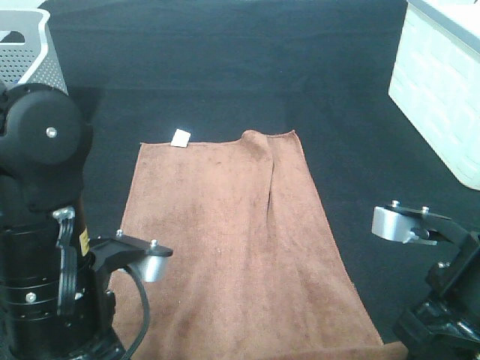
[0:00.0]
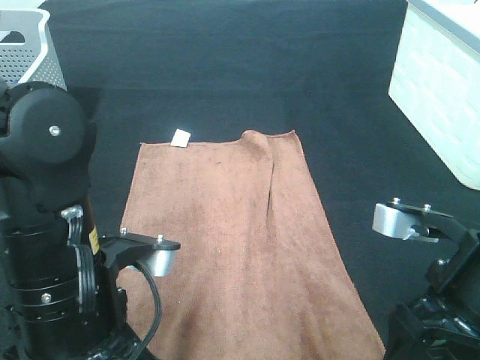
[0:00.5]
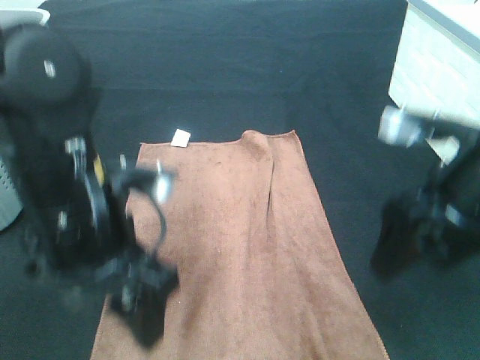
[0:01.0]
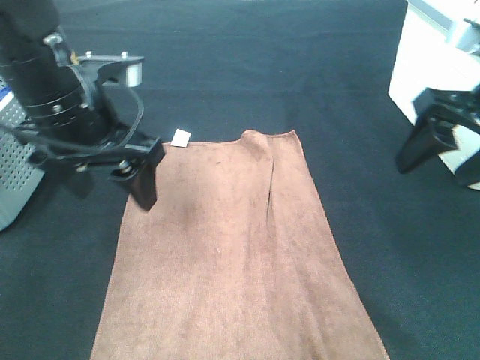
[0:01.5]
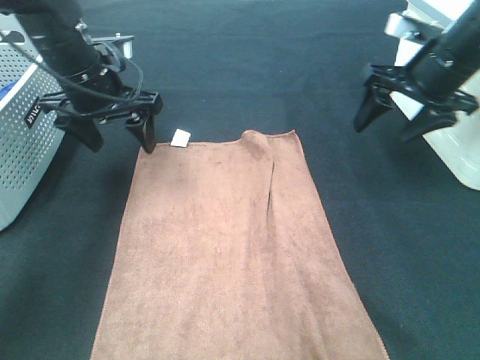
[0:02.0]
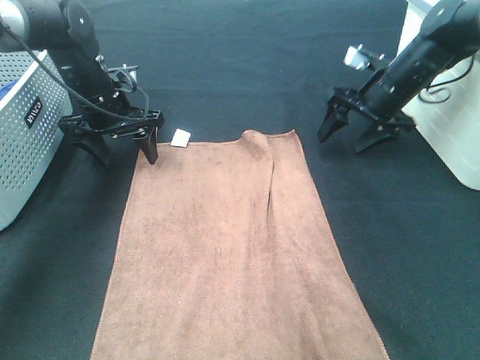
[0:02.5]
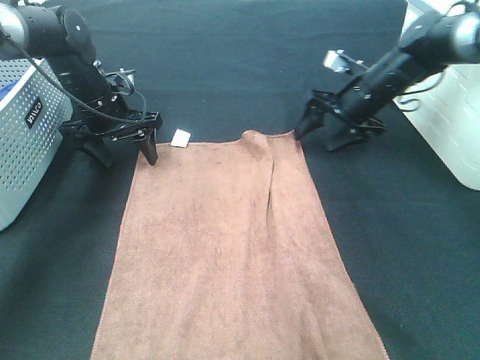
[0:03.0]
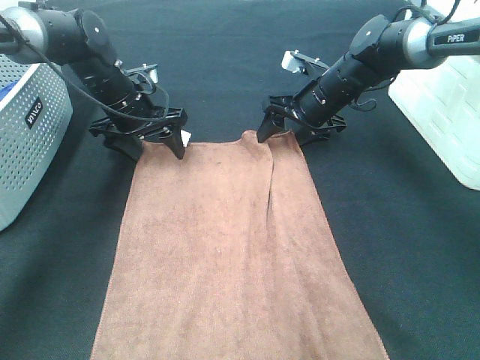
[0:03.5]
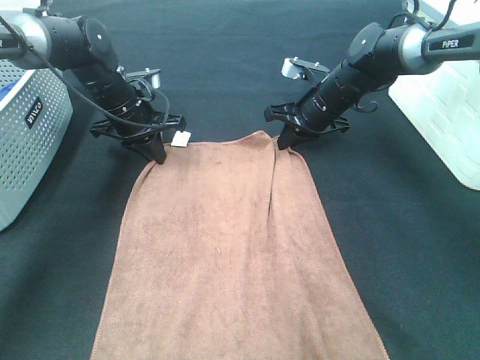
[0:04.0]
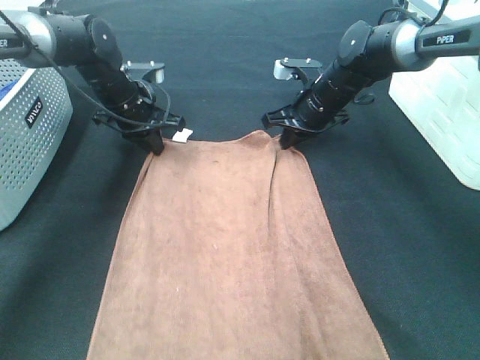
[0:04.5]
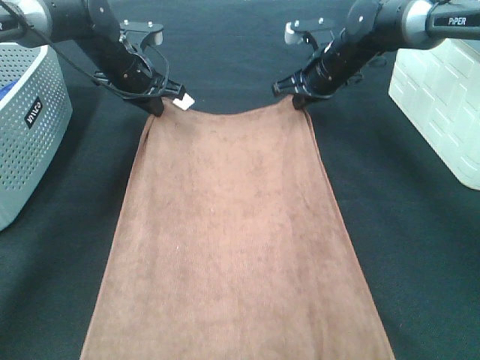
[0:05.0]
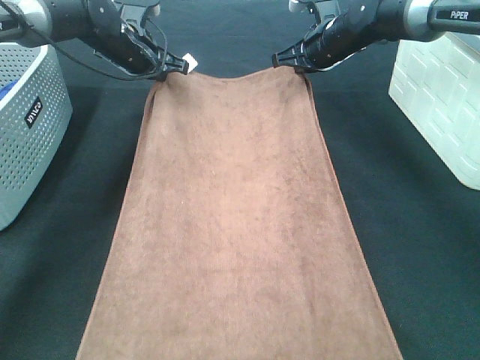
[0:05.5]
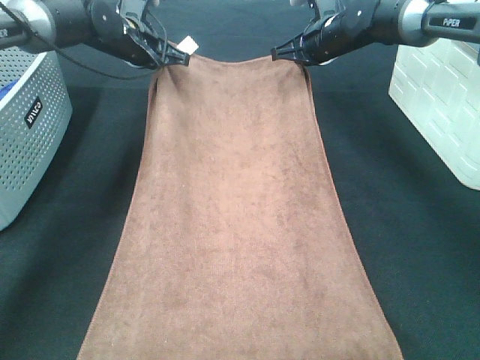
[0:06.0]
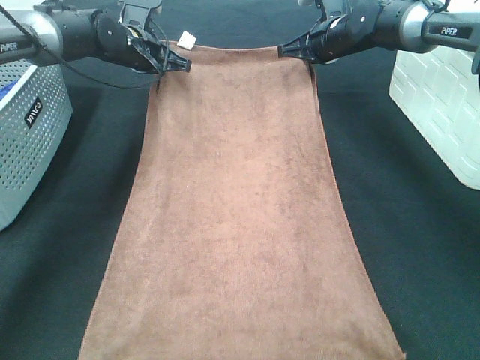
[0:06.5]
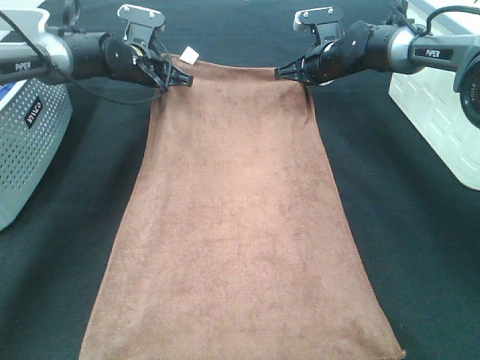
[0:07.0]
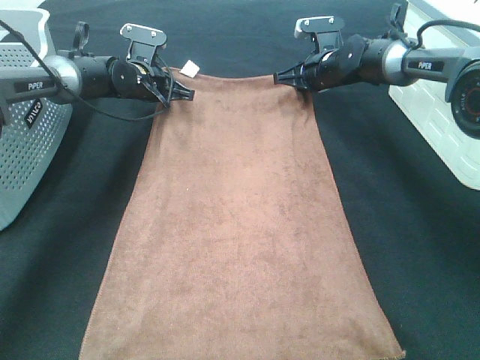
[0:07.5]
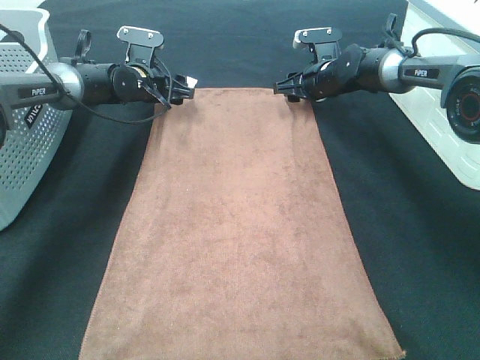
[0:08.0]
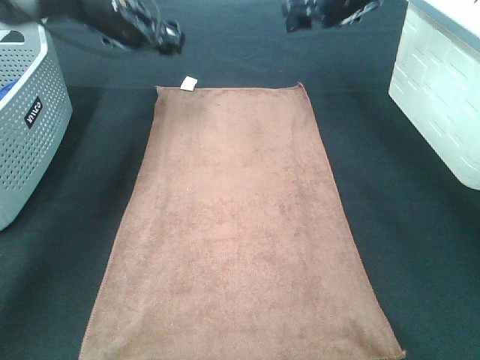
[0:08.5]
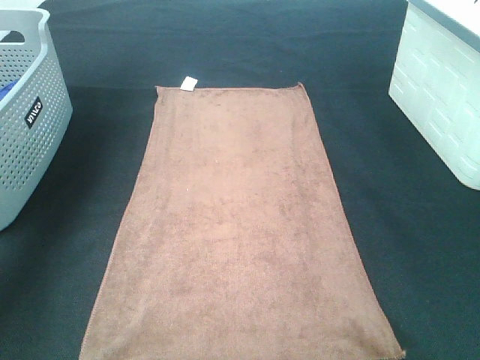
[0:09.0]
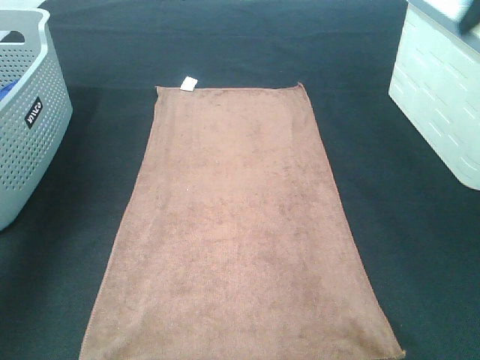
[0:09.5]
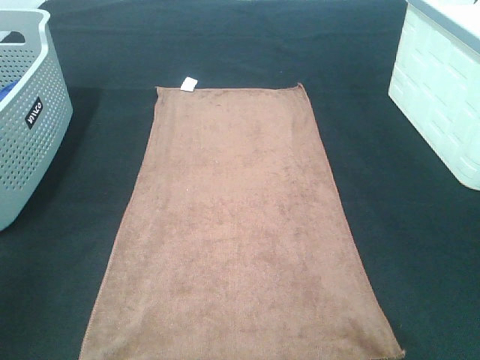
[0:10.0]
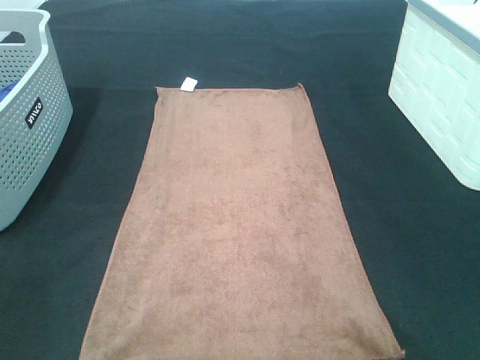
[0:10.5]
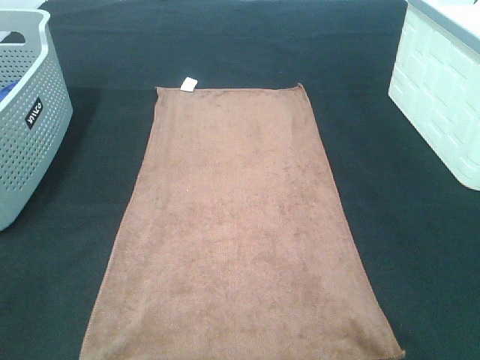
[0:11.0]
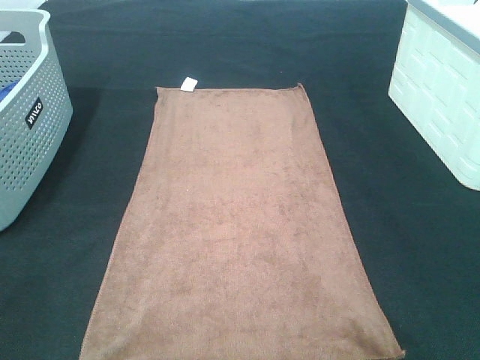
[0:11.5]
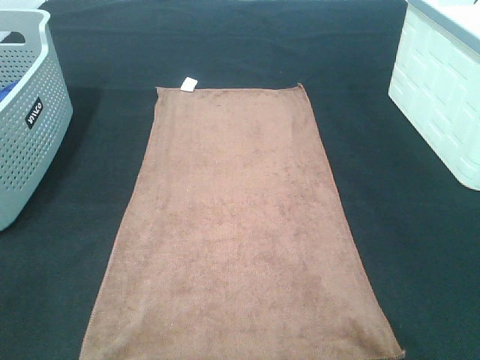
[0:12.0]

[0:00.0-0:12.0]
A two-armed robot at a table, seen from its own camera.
Task of the whole recording: Remove the towel and place it.
Step, 0:00.0 to 0:02.0: Left hand:adjust the brown towel.
Step, 0:00.0 to 0:02.0: Right hand:adjust the brown towel.
0:00.0 to 0:02.0: The grippers both shift forward by about 25 cm. The left gripper opens up; the right gripper opens up.
0:02.0 to 0:04.0: The right gripper heads downward, to the left and forward, covering roughly 15 cm, and closes up; the left gripper travels downward and forward by approximately 10 cm, and closes up.
0:04.0 to 0:06.0: The left gripper shifts roughly 10 cm forward and upward, while the right gripper moves upward and forward, about 10 cm.
0:06.0 to 0:08.0: The two grippers go about 10 cm downward. The left gripper opens up, while the right gripper opens up.
0:08.0 to 0:10.0: The grippers both shift backward and upward by some 60 cm.

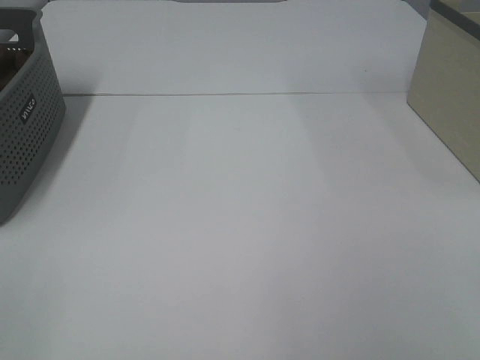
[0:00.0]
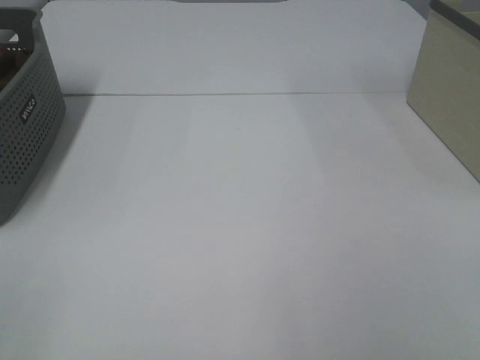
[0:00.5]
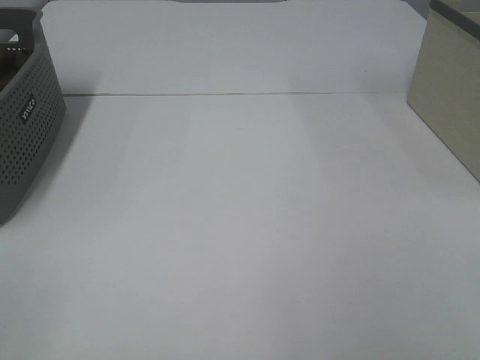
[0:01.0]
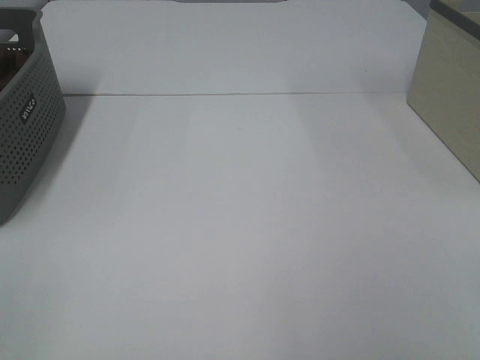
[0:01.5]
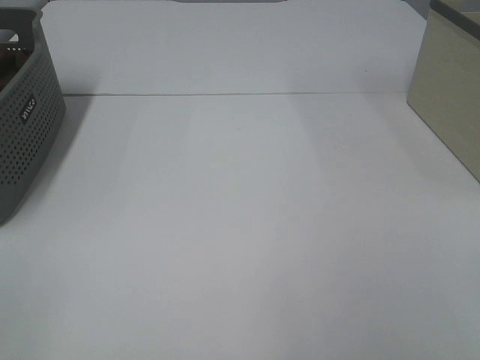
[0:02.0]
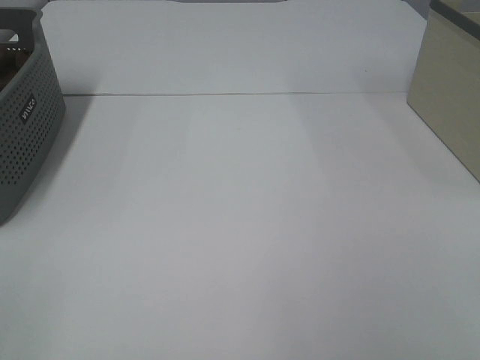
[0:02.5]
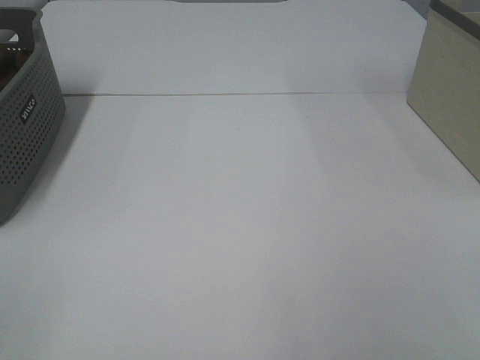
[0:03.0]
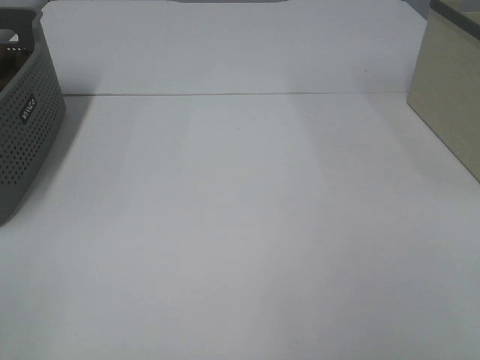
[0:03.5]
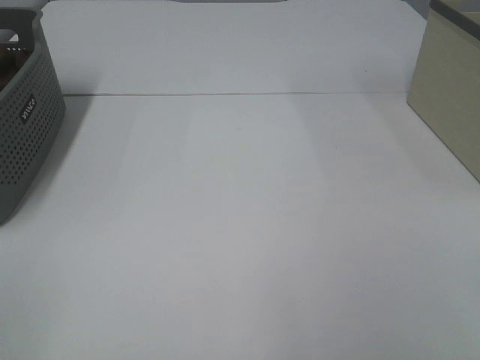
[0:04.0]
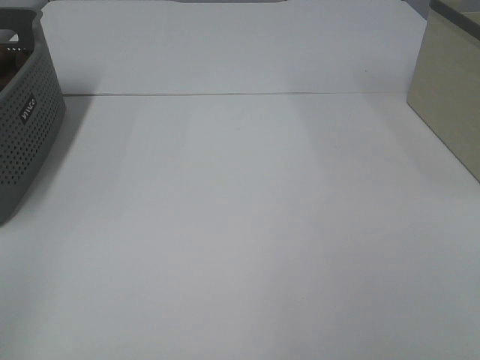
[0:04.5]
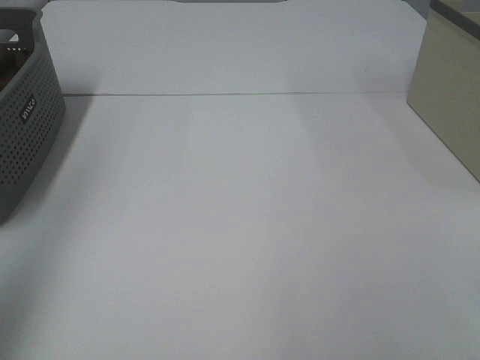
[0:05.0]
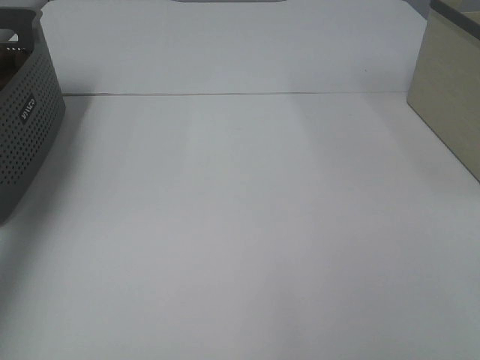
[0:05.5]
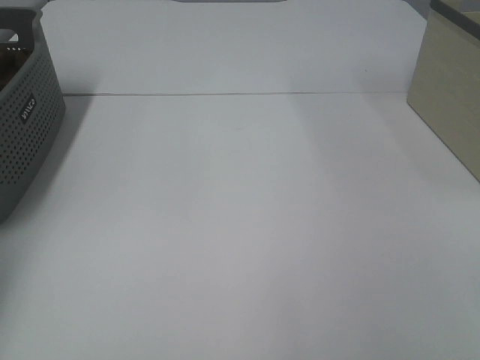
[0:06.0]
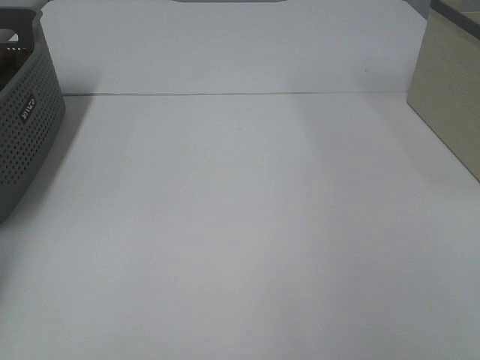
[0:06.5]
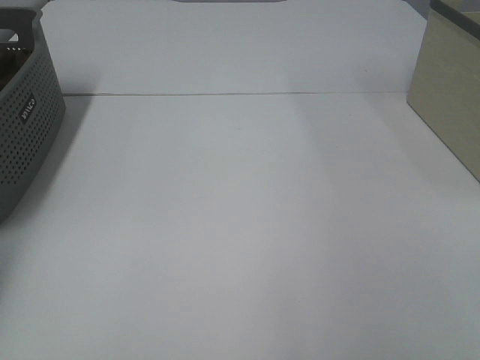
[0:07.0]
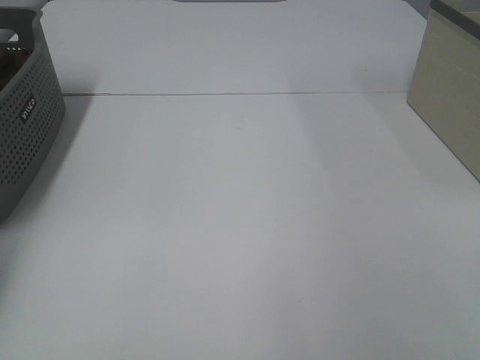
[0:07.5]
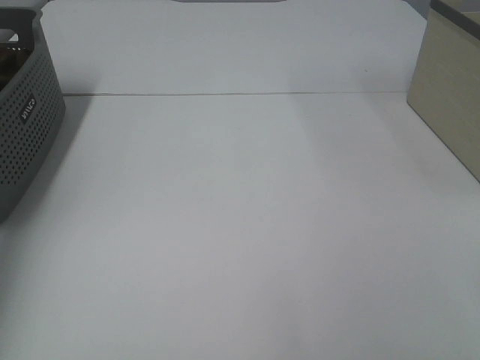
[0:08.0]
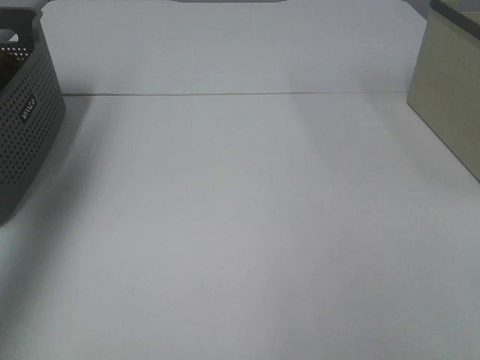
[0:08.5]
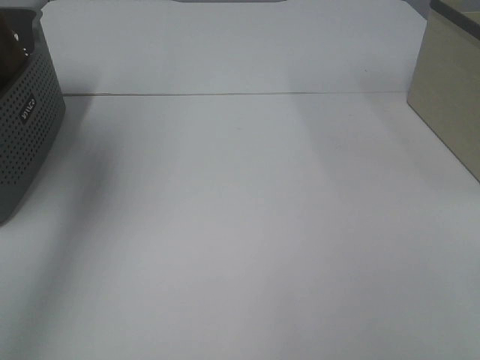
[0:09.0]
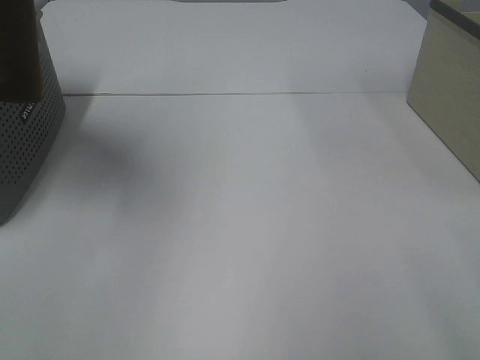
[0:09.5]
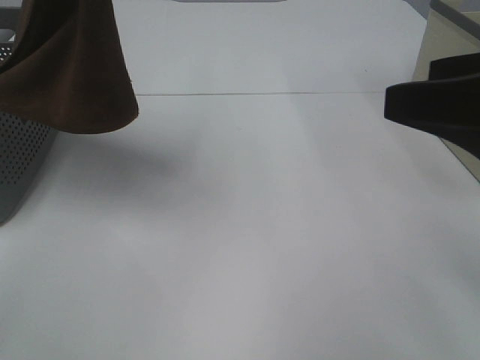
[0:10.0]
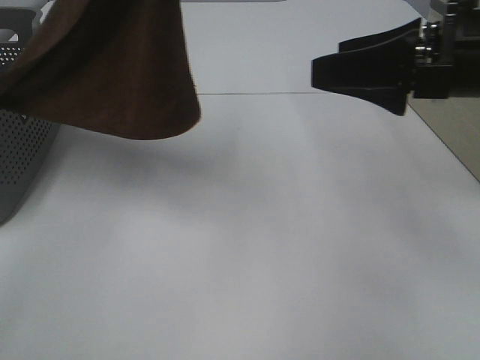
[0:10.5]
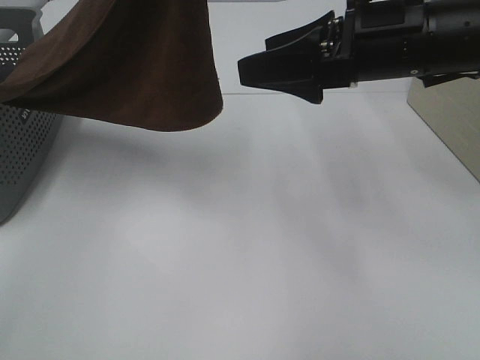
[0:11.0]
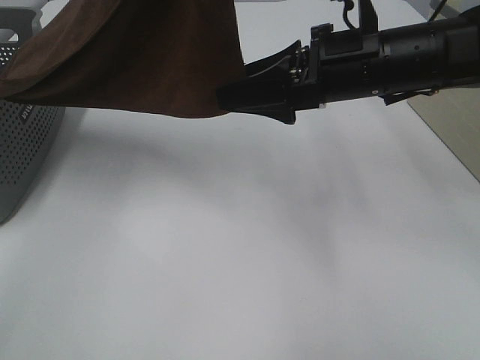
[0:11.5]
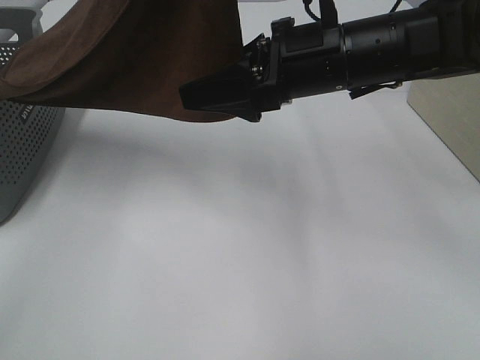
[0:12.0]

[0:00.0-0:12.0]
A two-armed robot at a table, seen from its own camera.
Task of the whole recording: Remove the towel and place it.
0:00.0 to 0:02.0: The two grippers keep their place.
0:02.0 to 0:04.0: The two grippers keep their place.
0:04.0 to 0:06.0: The left gripper shifts about 40 cm forward.
0:08.0 to 0:10.0: The left gripper shifts some 30 cm to the right, upward and backward. The right gripper shifts approximately 15 cm forward.
0:10.0 to 0:12.0: The right gripper travels to the left and forward by roughly 20 cm; the left gripper moves to the right, roughly 5 cm.

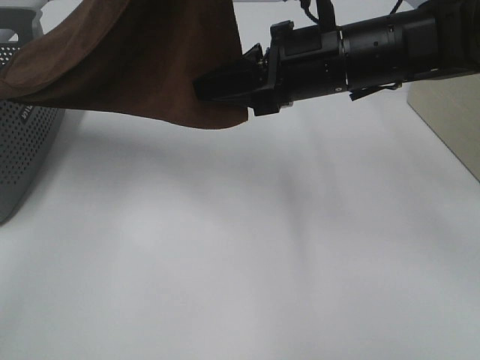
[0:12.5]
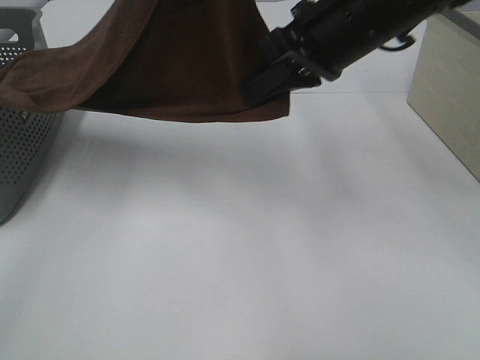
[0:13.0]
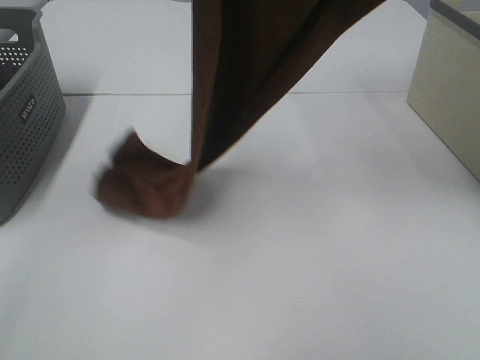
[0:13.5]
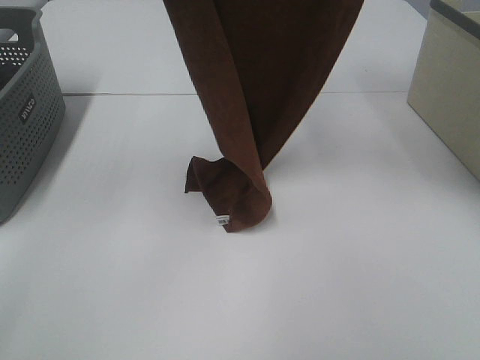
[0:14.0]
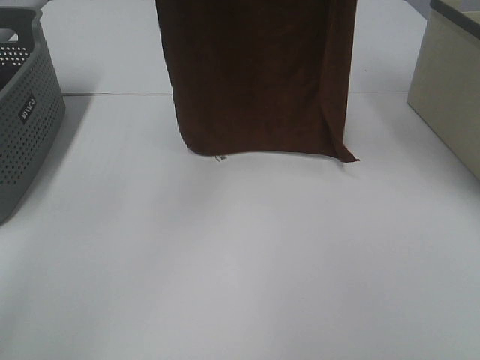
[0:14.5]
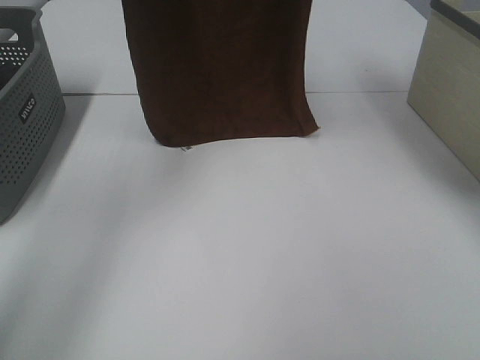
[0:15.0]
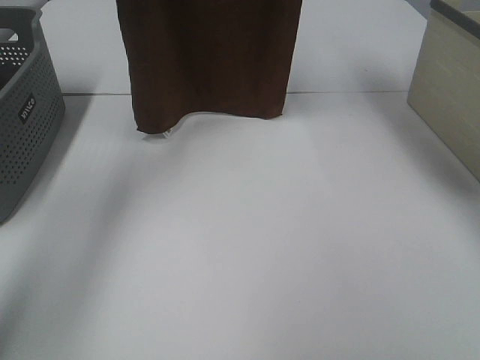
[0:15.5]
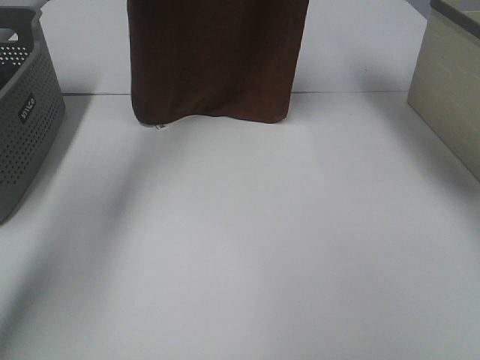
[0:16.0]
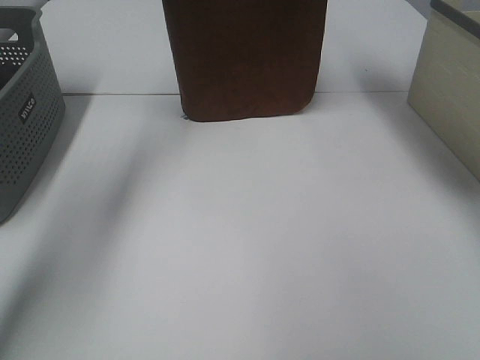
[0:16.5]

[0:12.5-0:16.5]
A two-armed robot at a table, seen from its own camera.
Task of the whole recording: Remove the towel and place it.
0:12.5 to 0:14.5: The right gripper travels upward by roughly 30 cm; the left gripper moves forward and to the left, some 10 cm.
0:14.5 to 0:16.5: The two grippers go about 15 cm forward and downward.
